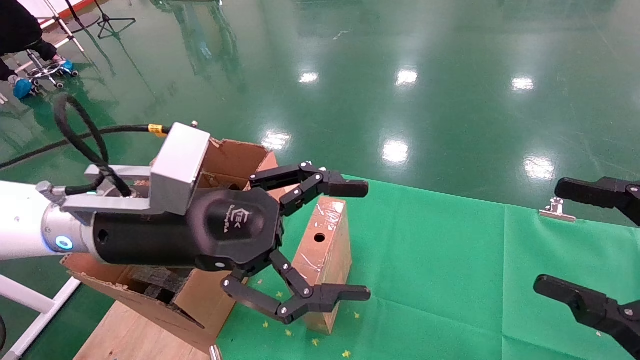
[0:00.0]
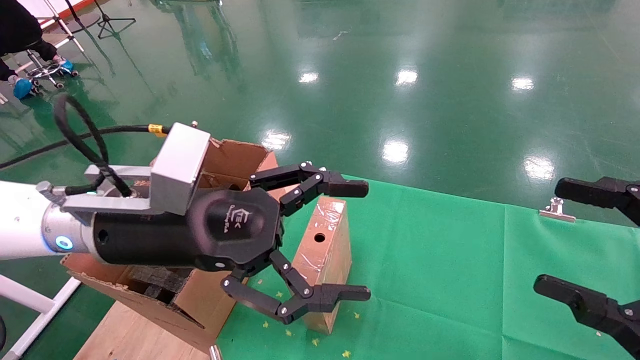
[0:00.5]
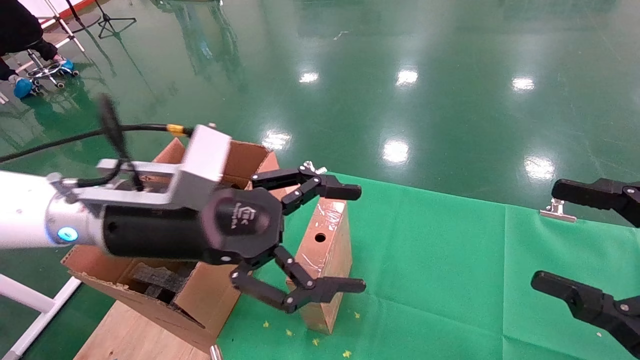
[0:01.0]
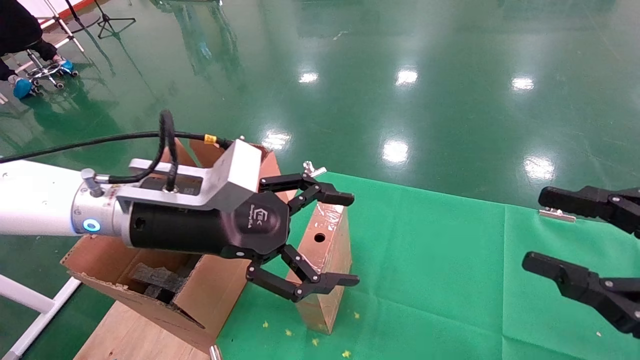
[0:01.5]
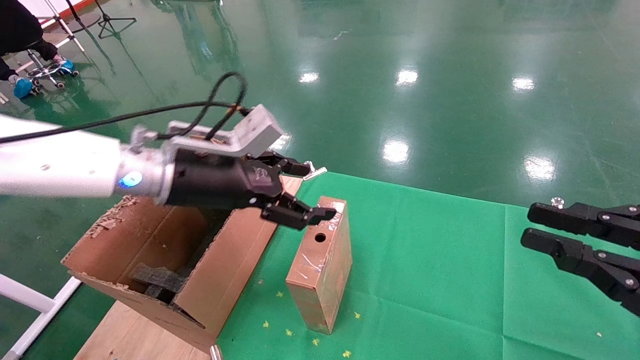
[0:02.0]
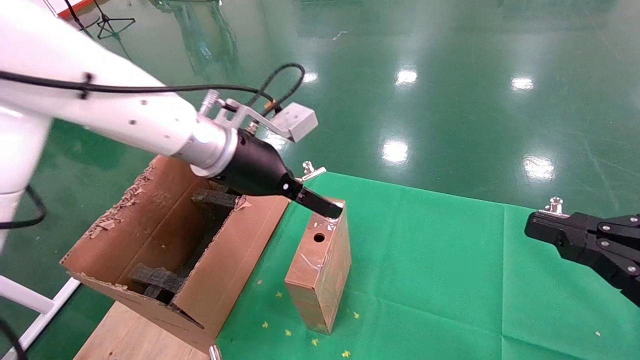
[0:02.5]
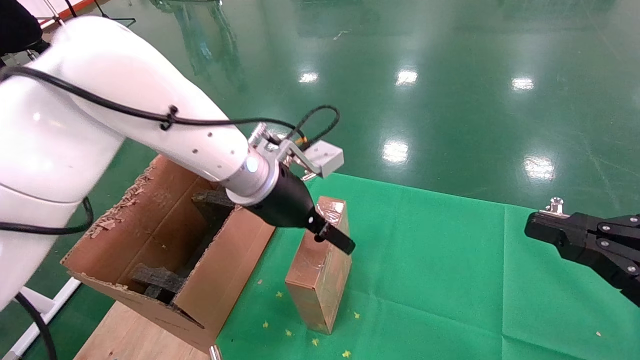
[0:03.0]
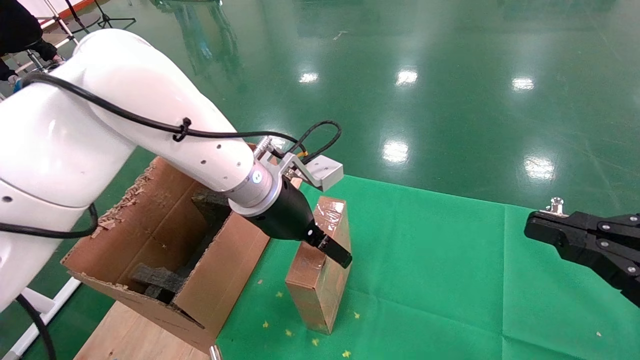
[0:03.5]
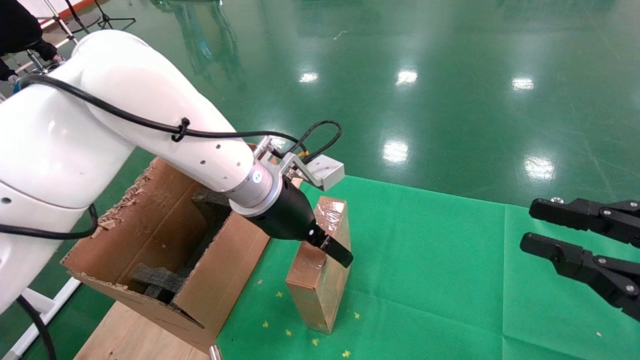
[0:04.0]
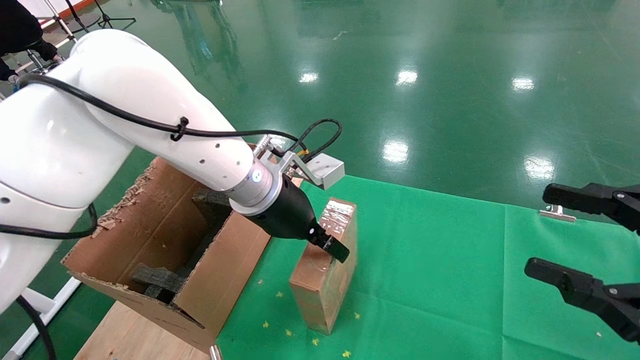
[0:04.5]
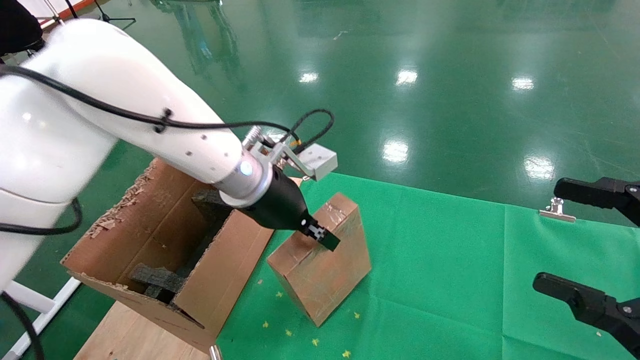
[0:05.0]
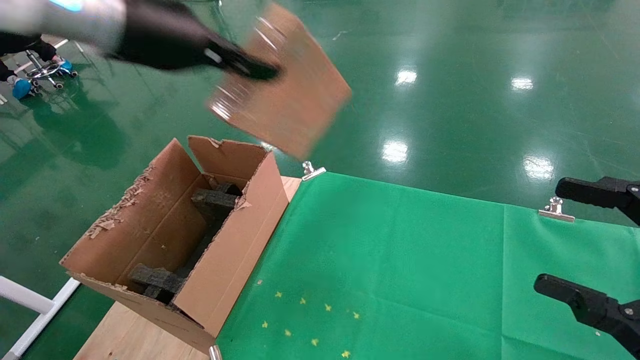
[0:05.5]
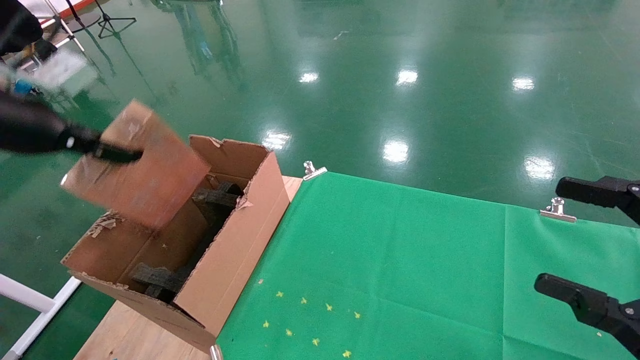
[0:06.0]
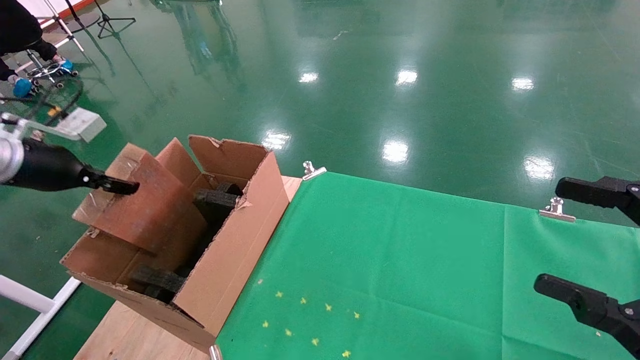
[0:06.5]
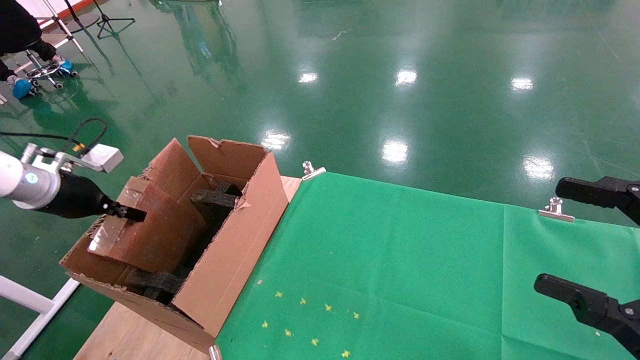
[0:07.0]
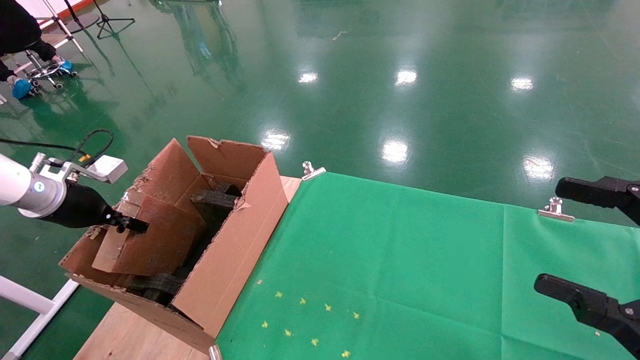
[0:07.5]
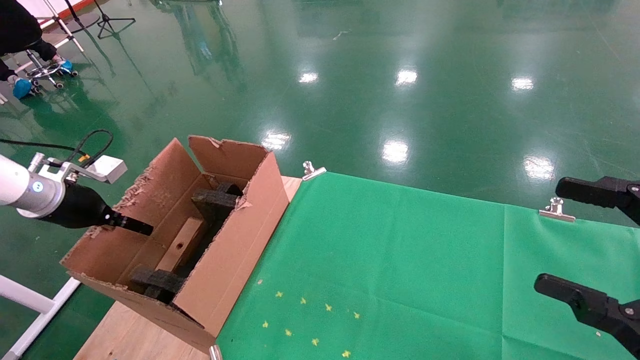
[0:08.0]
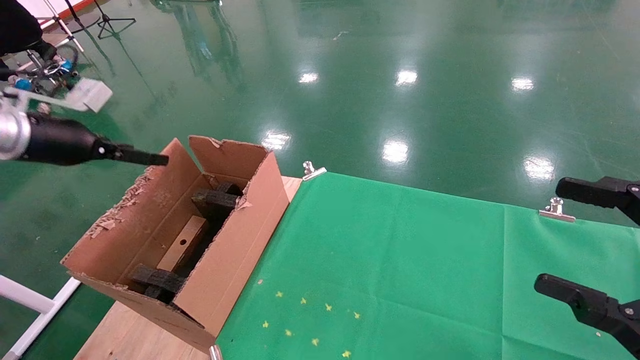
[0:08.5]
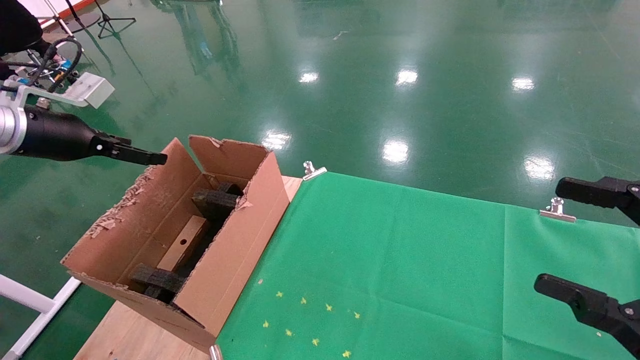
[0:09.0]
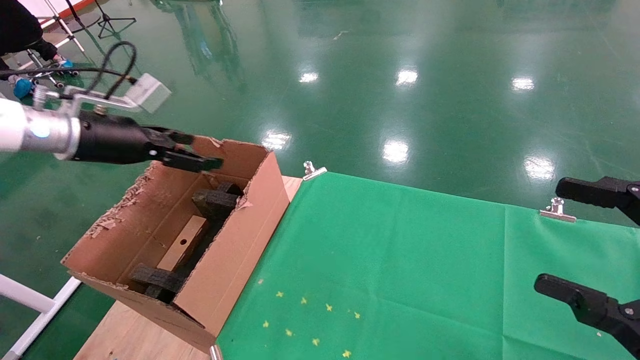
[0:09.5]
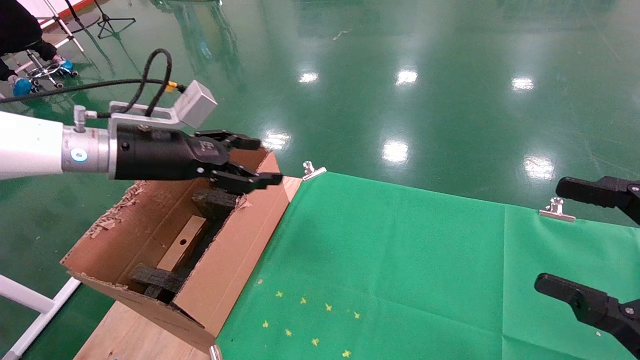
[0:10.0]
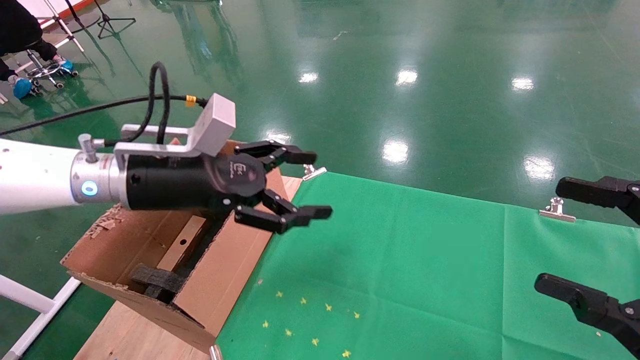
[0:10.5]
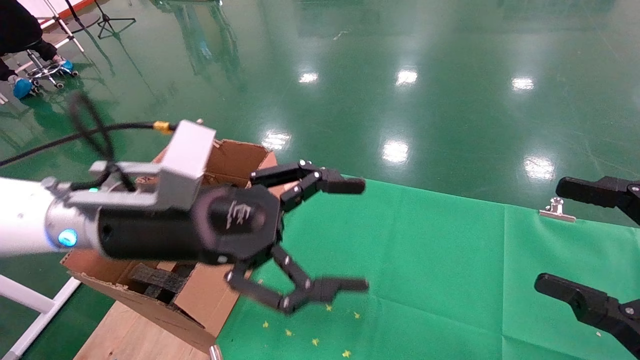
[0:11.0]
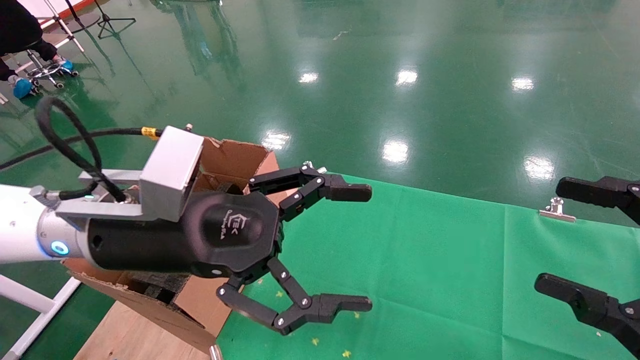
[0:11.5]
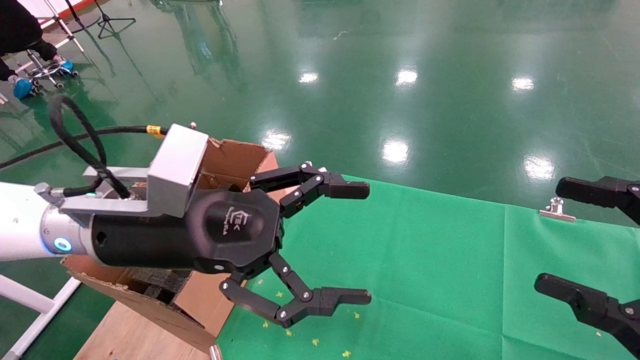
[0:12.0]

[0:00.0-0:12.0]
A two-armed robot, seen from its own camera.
Task of the whole recording: using a robotic arm to pick up a cardboard box and palace it the carton.
Step, 0:01.5 to 0:04.5: Pick up the mouse and the power cord paper box.
Step, 0:05.0 to 0:07.5: Place the mouse and the power cord paper box into the container.
0:00.0 to 0:02.0: The left gripper travels forward by some 10 cm. The right gripper closes up.
0:02.0 to 0:04.0: The left gripper moves to the right, some 10 cm.
0:04.0 to 0:06.0: The right gripper opens its fingers; the left gripper is displaced to the left and upward by some 30 cm, and closes its fingers.
0:06.0 to 0:08.0: The left gripper travels downward, to the left and forward by approximately 20 cm.
0:08.0 to 0:10.0: The left gripper heads to the right and upward, covering about 20 cm, and opens its fingers.
0:10.0 to 0:12.0: The left gripper moves to the right and backward, about 15 cm.

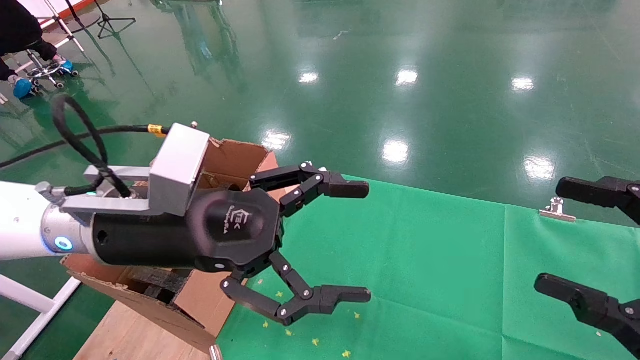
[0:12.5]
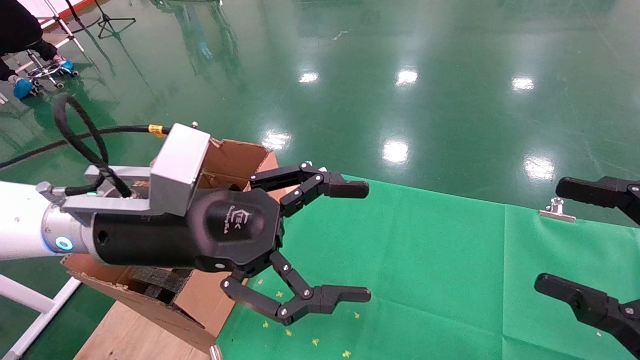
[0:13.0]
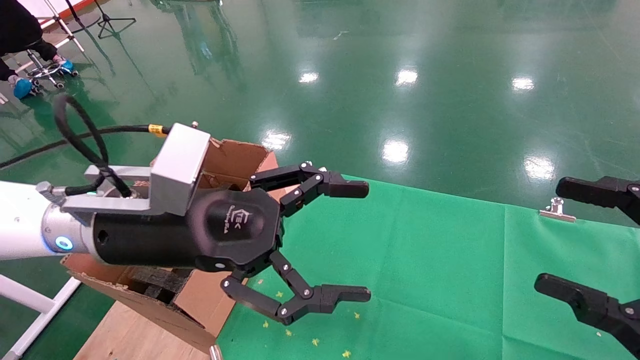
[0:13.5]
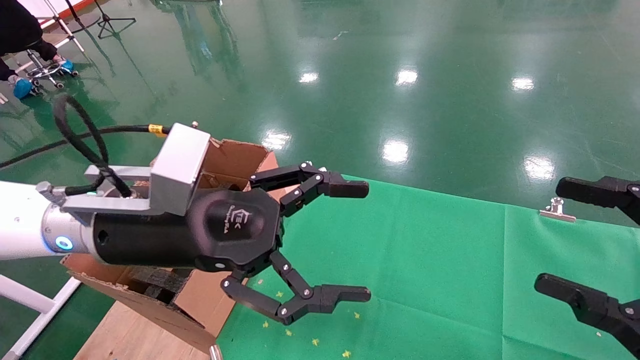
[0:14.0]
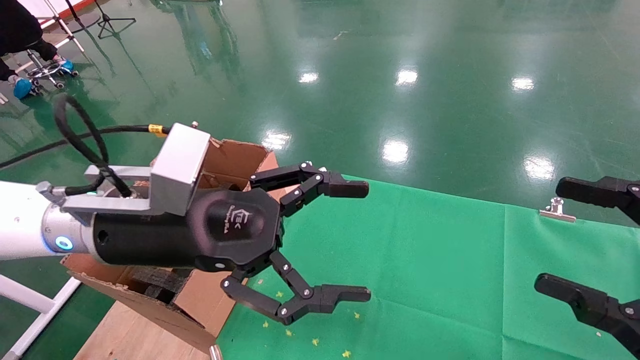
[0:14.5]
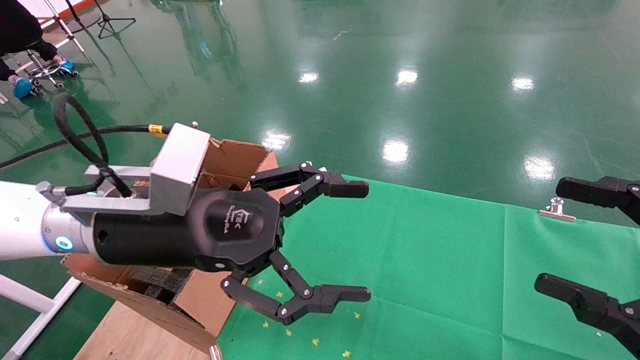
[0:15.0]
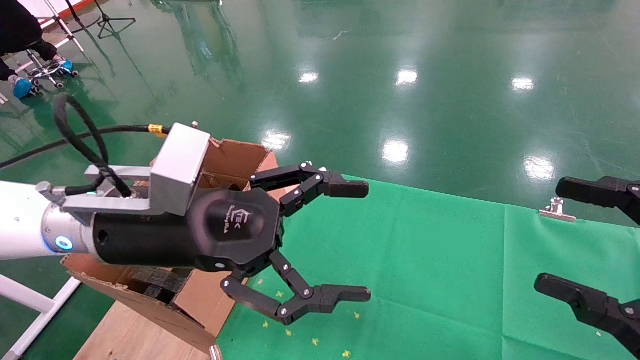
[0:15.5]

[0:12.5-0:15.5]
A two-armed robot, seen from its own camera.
Task of the whole recording: using a robotic arm to pick up a cardboard box and palace it the carton.
0:12.5 to 0:15.5: Both grippers stay put.
